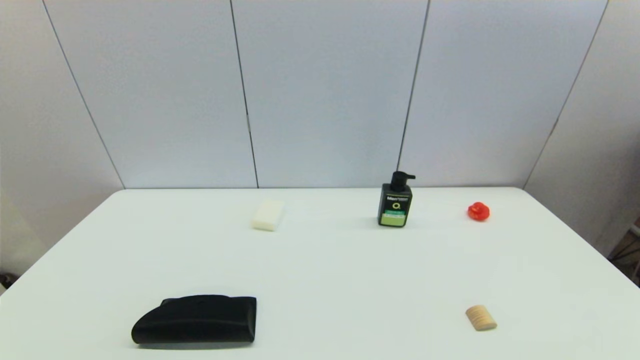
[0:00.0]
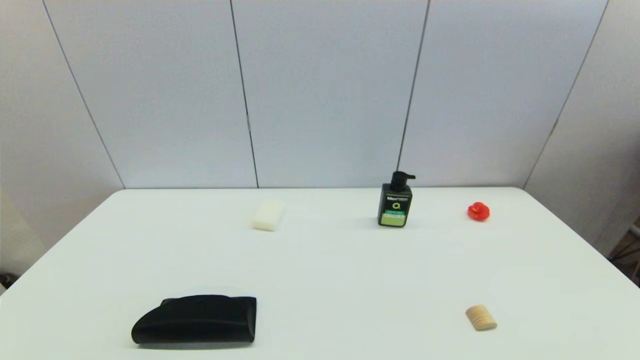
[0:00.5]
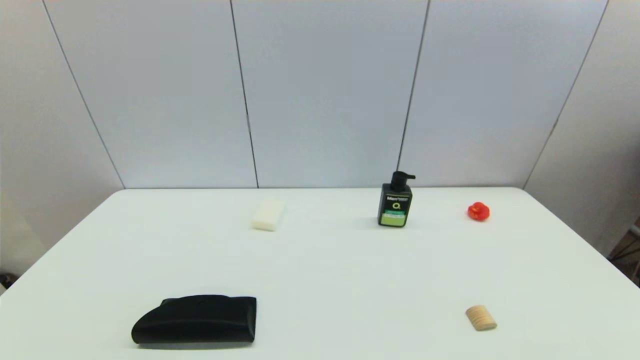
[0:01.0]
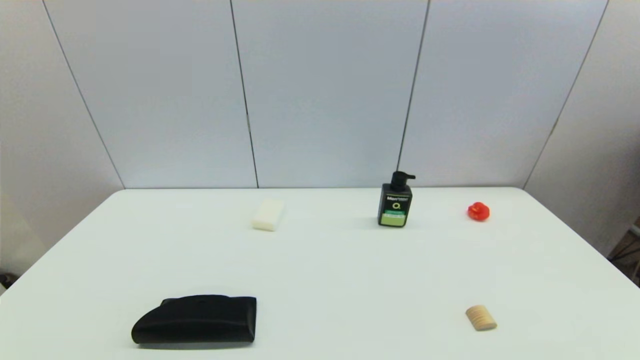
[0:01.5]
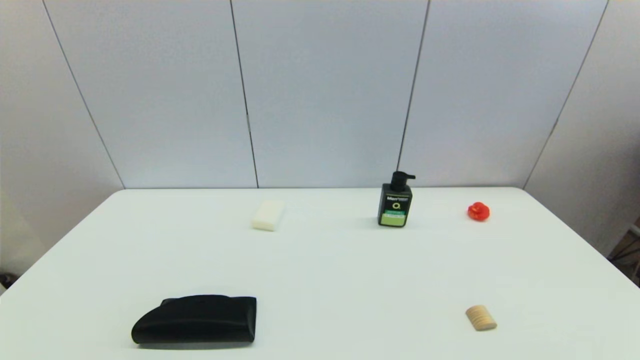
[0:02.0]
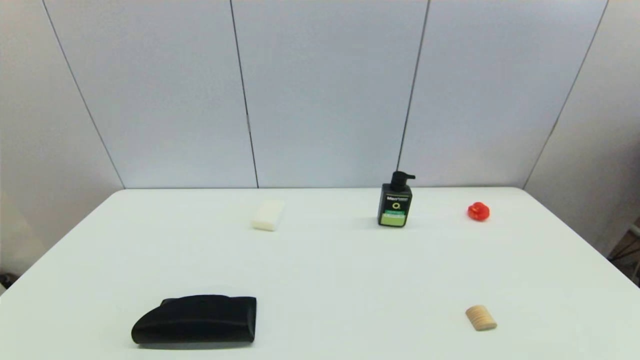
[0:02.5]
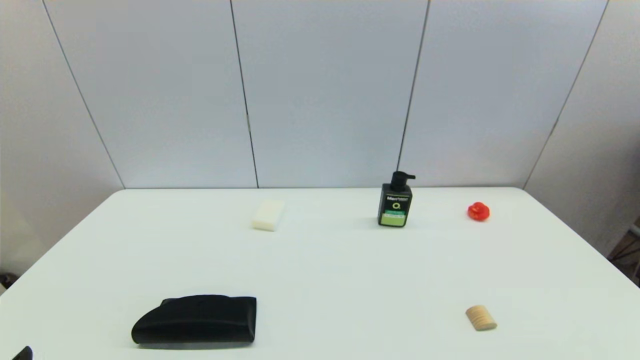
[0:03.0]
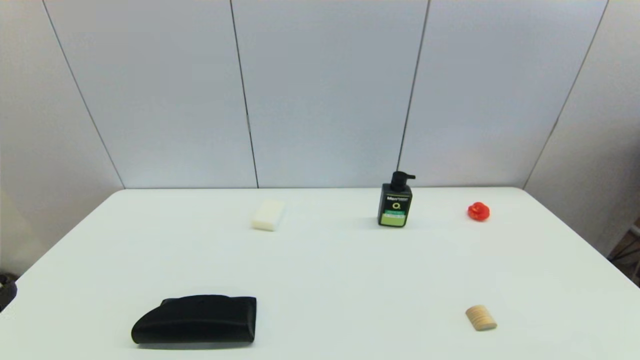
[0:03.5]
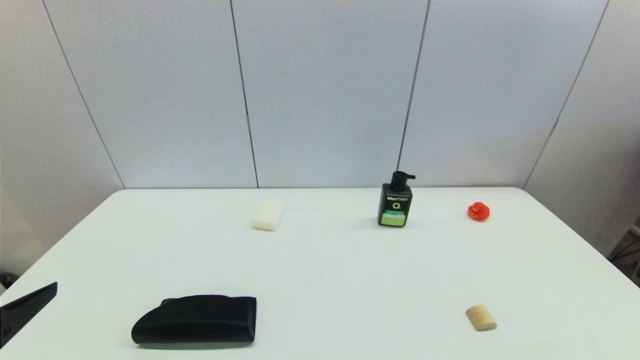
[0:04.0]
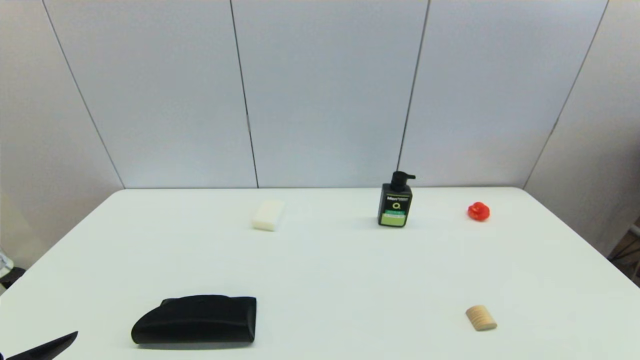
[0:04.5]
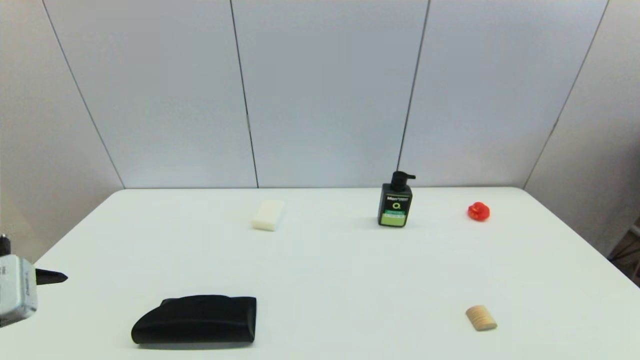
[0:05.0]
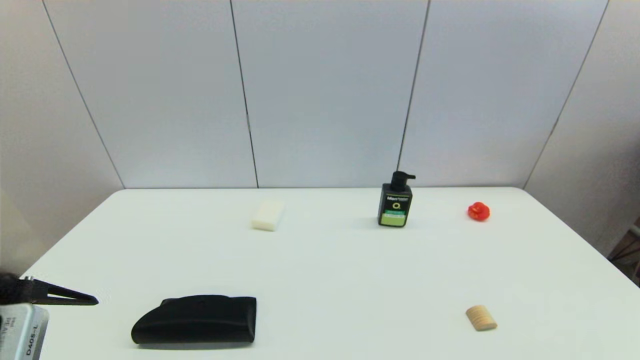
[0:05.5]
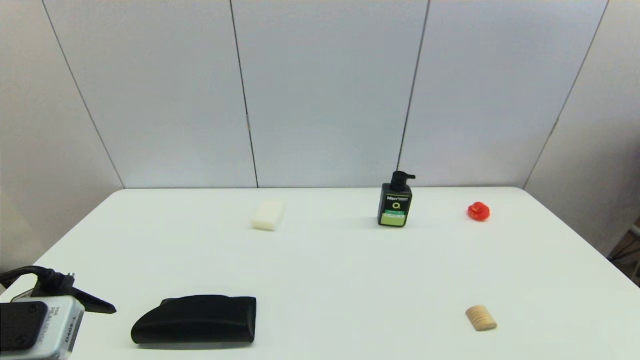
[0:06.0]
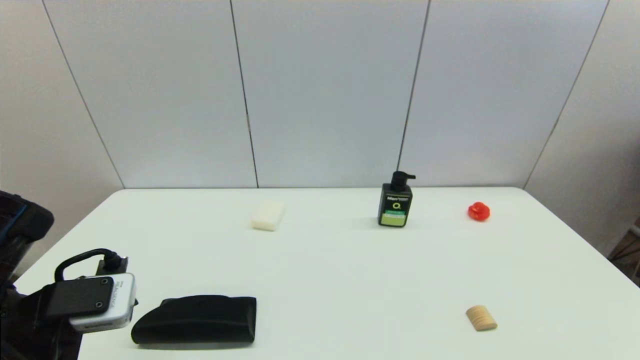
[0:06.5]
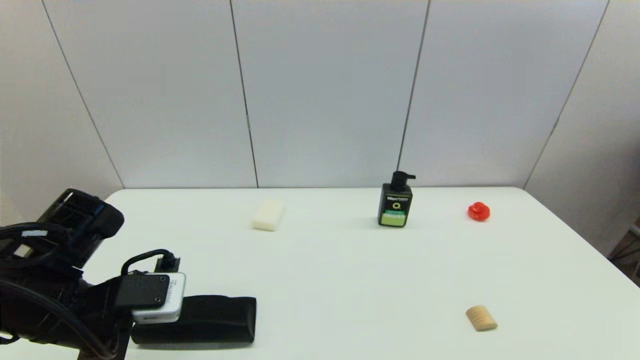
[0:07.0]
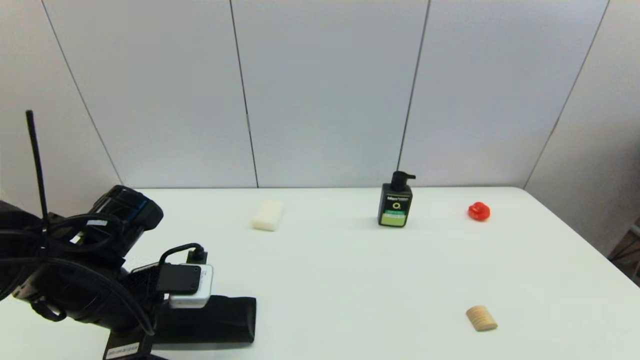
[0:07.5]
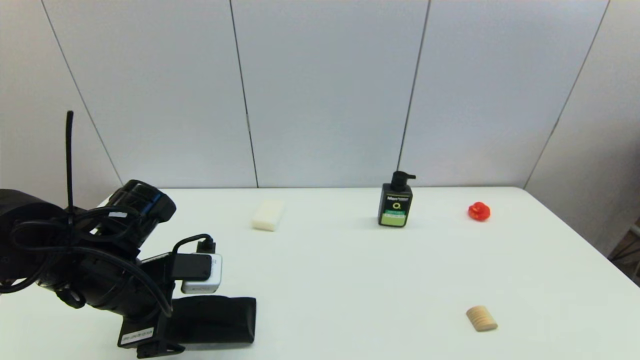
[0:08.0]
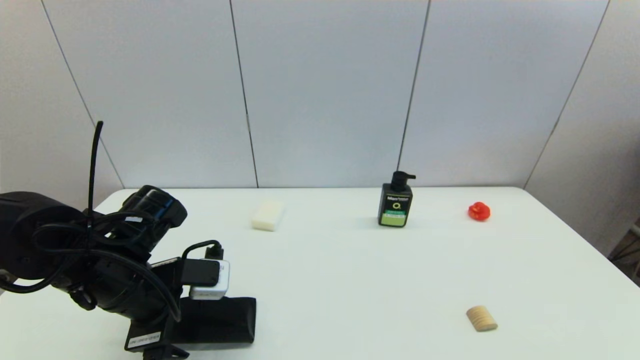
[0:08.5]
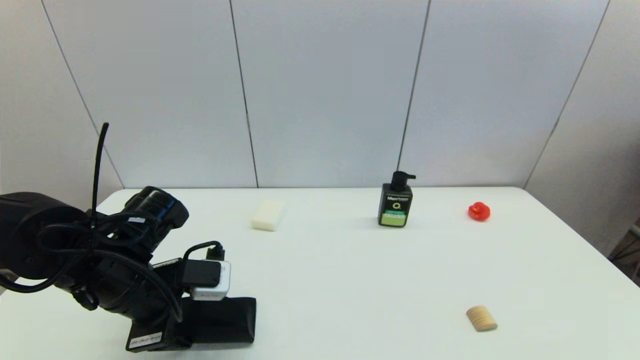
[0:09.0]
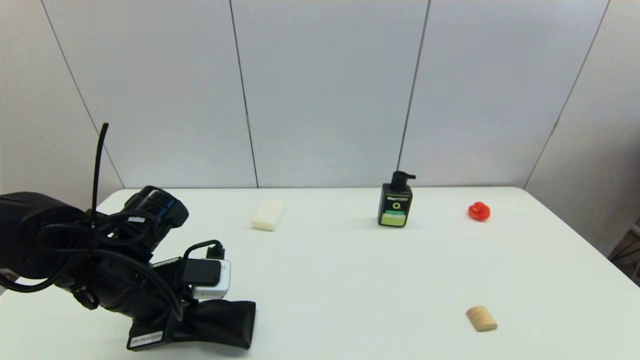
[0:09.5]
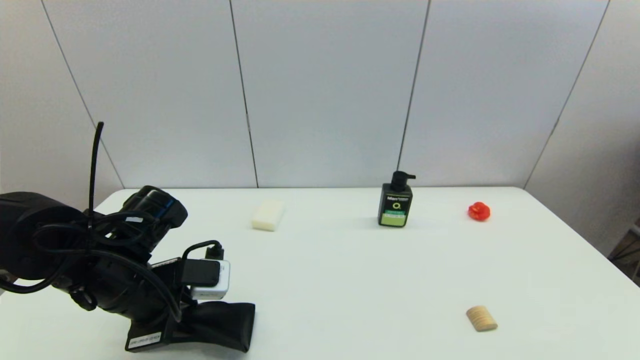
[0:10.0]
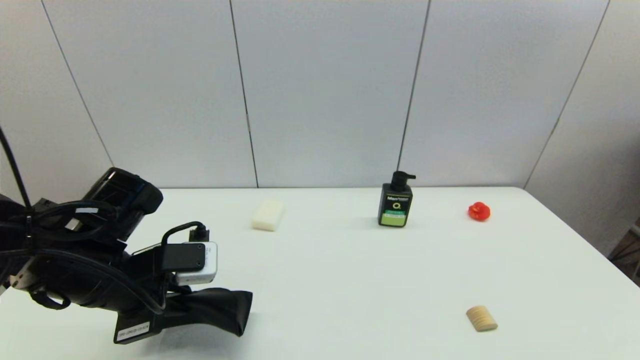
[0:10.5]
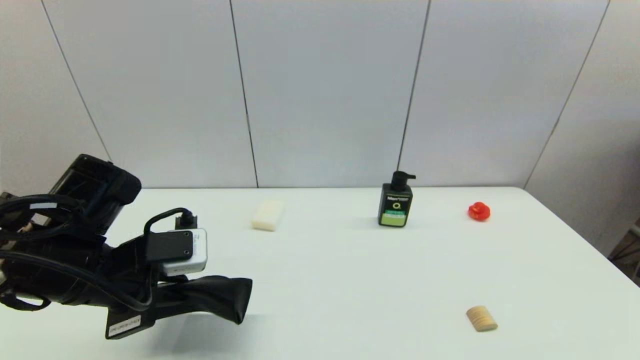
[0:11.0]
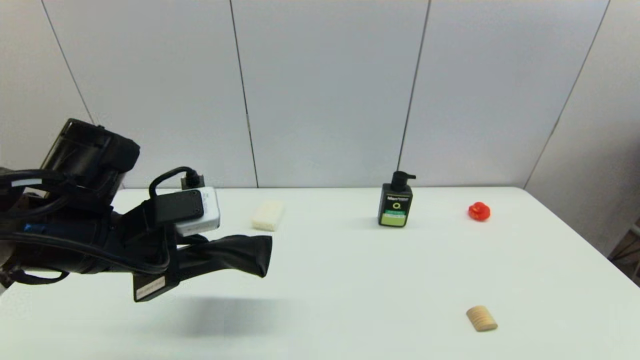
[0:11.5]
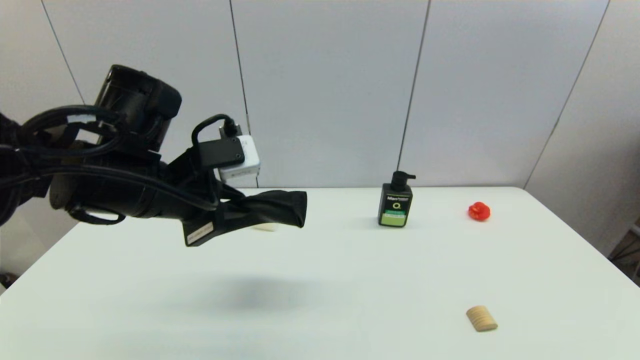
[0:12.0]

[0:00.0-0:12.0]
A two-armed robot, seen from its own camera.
Step, 3.0 to 9.5 s: Grasp the glasses case with left gripper.
0.0 to 2.0 s: The two grippers keep their place.
2.0 to 4.0 s: The left gripper goes some 15 cm upward and forward.
4.0 to 6.0 s: The left gripper is displaced forward by roughly 5 cm.
6.0 to 8.0 s: The left gripper goes some 15 cm forward, to the right and downward.
8.0 to 10.0 s: The left gripper closes its fingers.
10.0 to 12.0 s: The left gripper shifts roughly 10 cm upward.

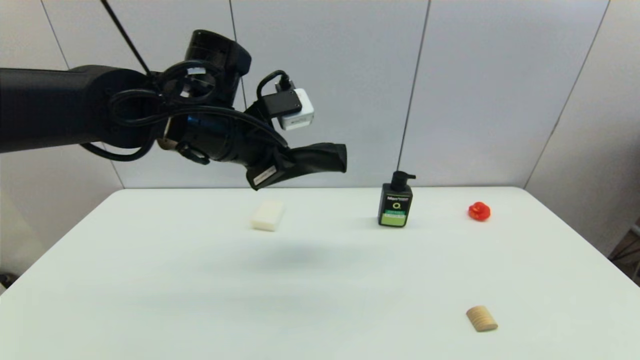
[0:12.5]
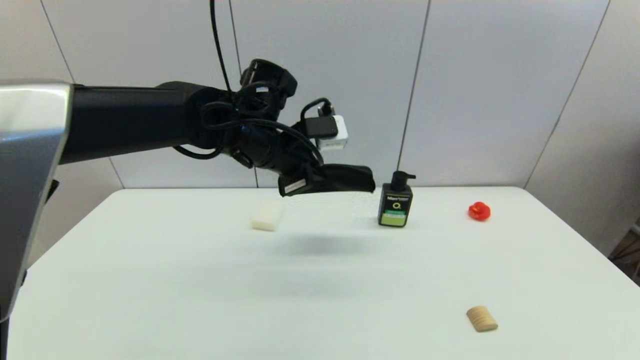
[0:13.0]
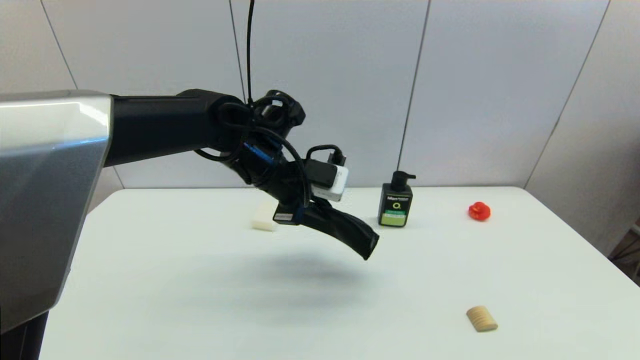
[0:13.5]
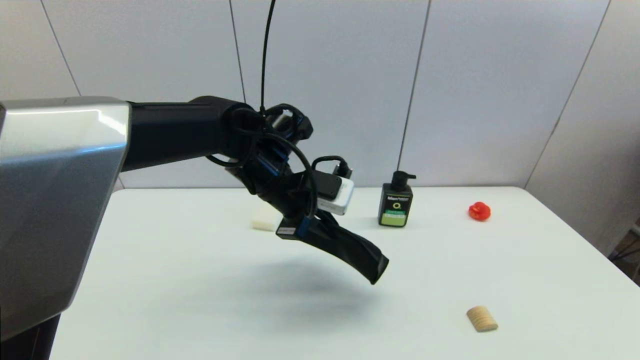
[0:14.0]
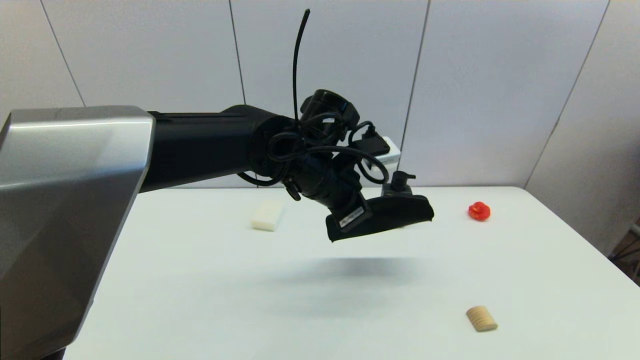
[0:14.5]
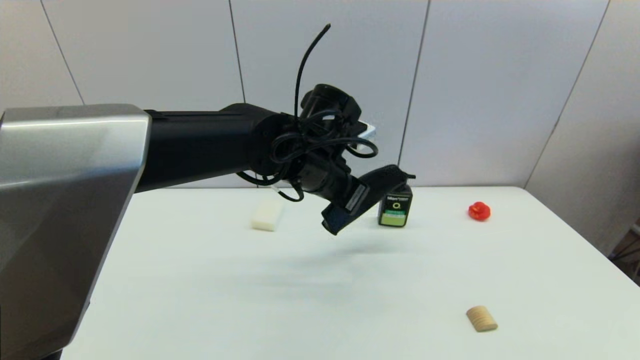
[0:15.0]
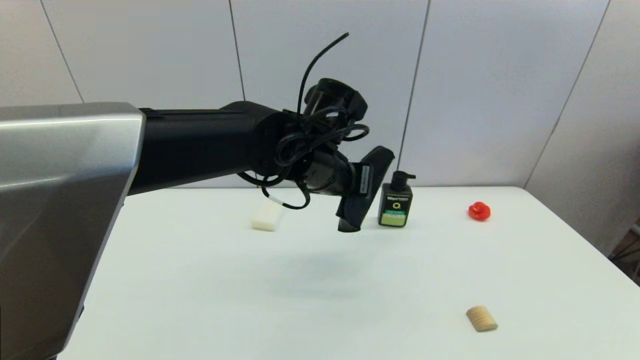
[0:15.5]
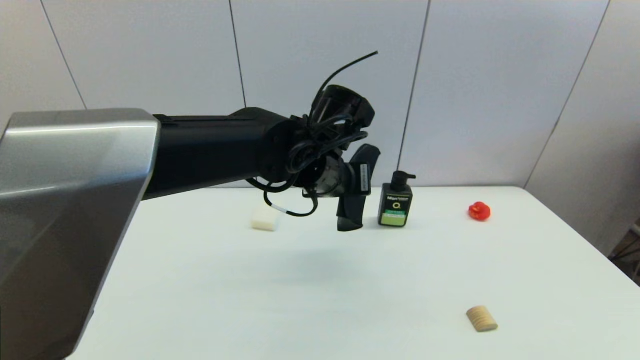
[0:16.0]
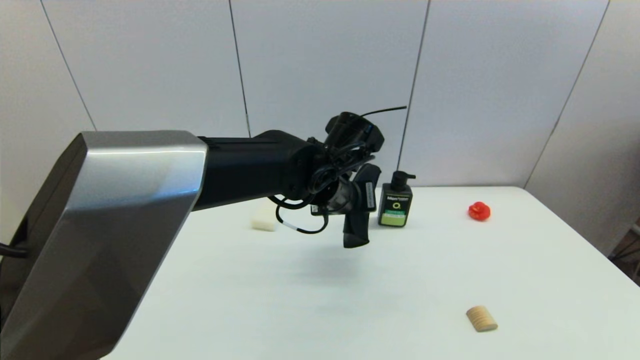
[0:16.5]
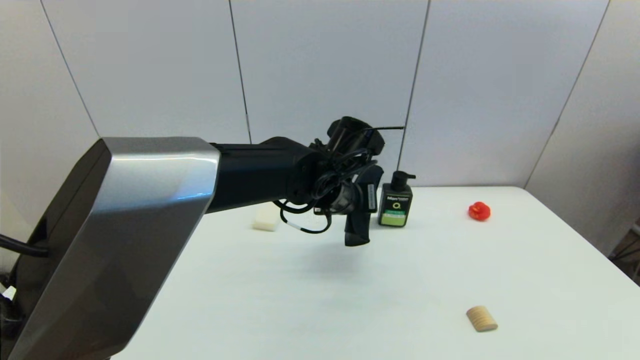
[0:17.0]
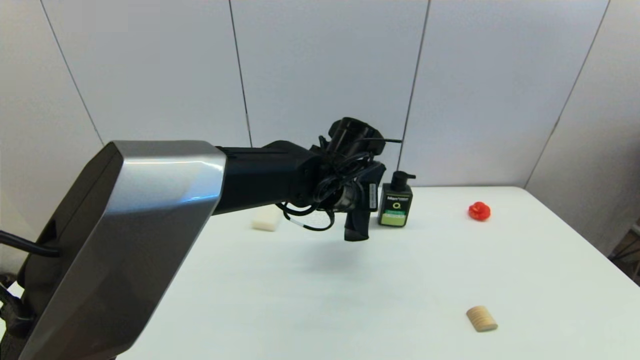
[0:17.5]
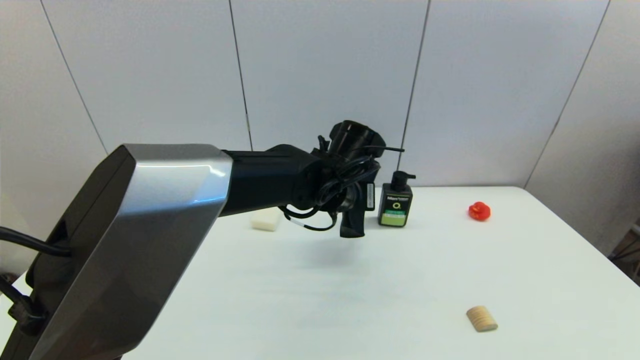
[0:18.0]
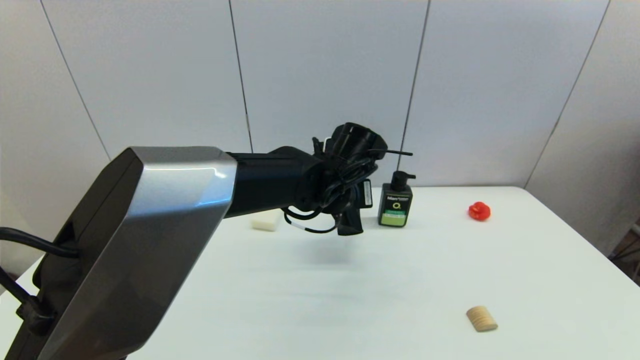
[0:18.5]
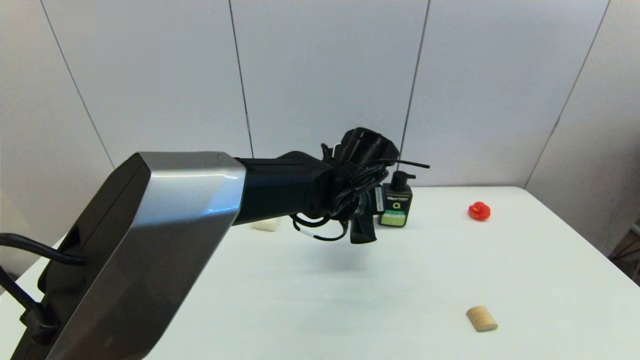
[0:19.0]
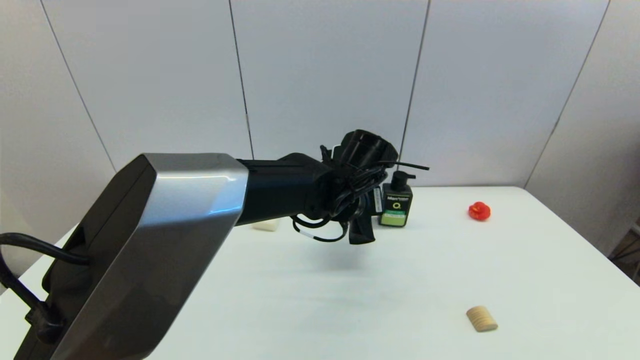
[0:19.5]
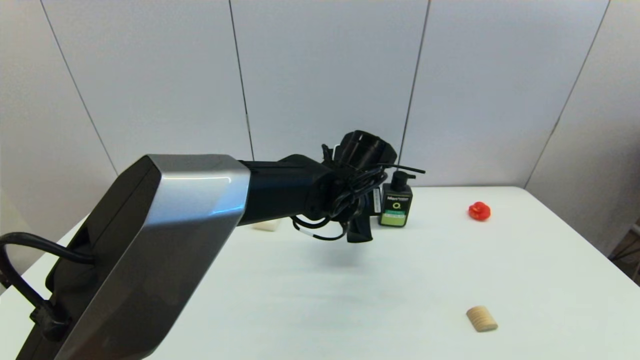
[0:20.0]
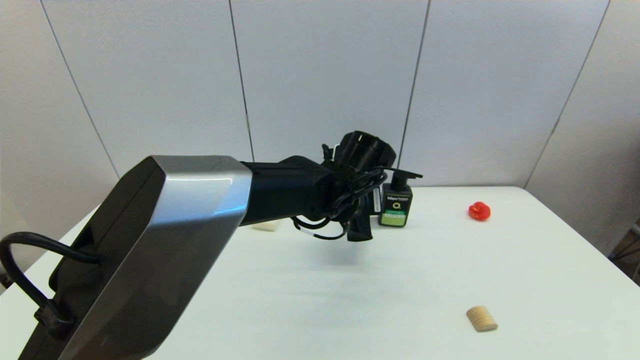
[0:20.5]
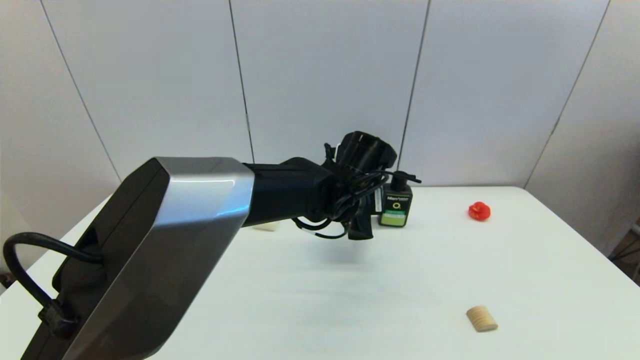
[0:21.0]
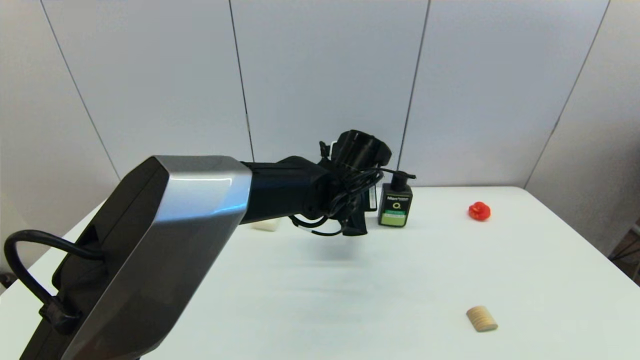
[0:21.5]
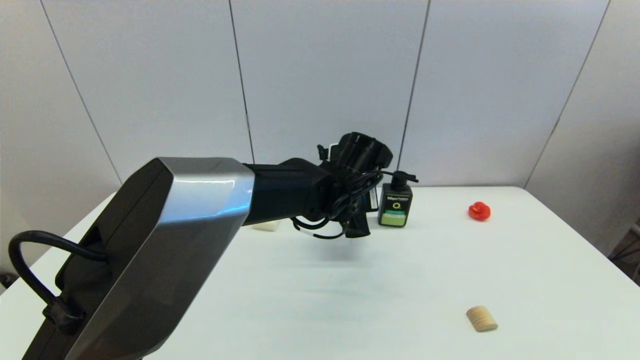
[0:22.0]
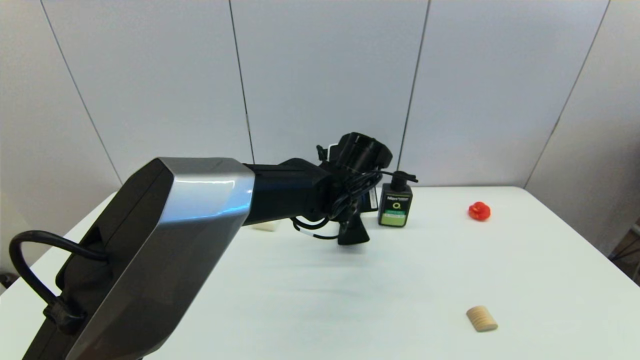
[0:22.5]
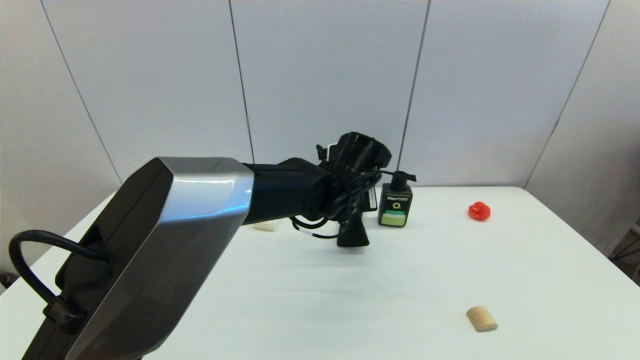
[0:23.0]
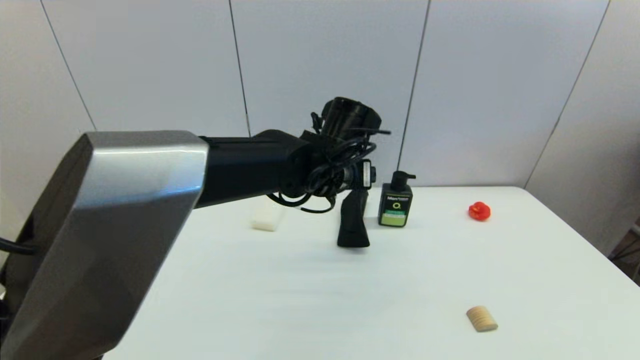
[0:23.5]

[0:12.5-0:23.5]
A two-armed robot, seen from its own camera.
Step, 12.5 to 23.0 s: Place the glasses case on the table with left gripper.
12.5 to 14.5 s: The left gripper travels to the right and downward by about 10 cm.
16.0 to 18.0 s: The left gripper shifts by approximately 5 cm.
18.0 to 20.0 s: The grippers make only small movements.
20.0 to 21.5 s: Both grippers stay about where they are.
21.5 to 23.5 s: The left gripper ends up some 5 cm from where it was, and opens up.
